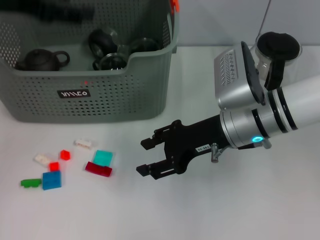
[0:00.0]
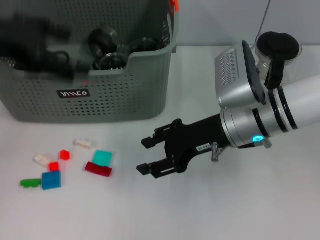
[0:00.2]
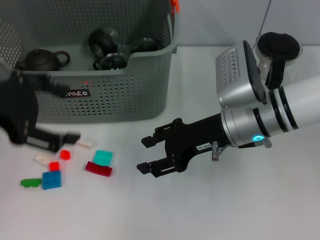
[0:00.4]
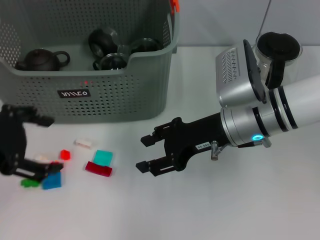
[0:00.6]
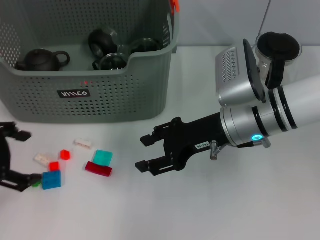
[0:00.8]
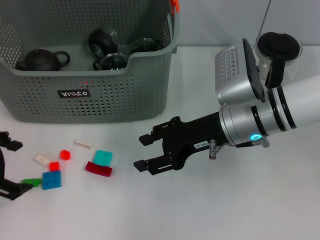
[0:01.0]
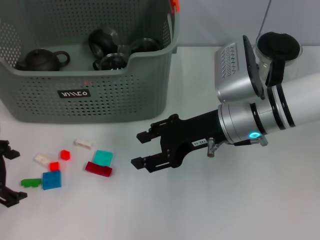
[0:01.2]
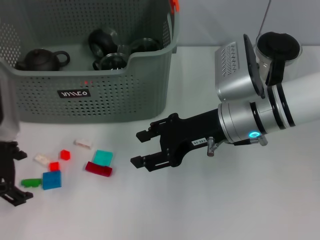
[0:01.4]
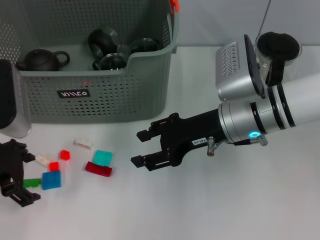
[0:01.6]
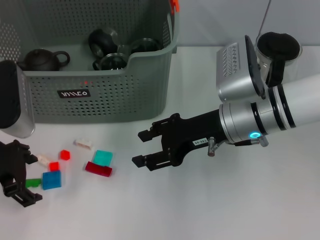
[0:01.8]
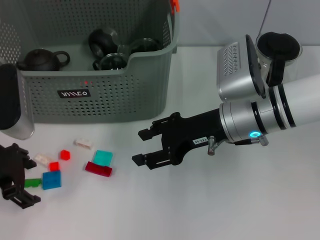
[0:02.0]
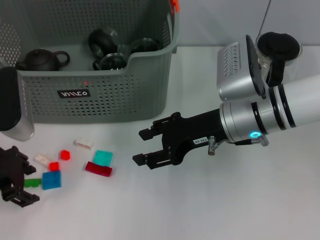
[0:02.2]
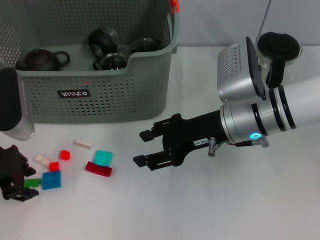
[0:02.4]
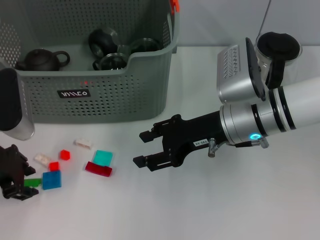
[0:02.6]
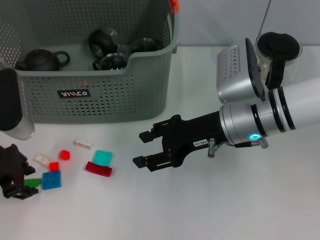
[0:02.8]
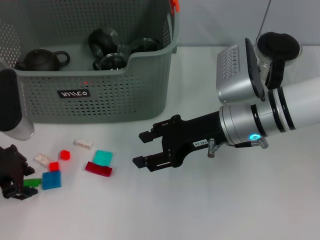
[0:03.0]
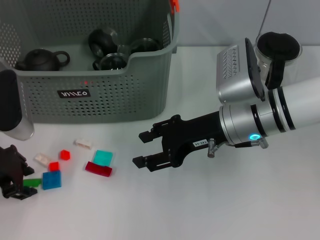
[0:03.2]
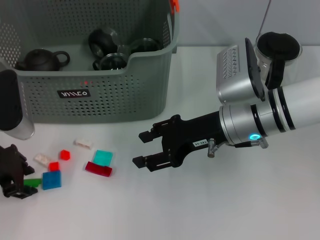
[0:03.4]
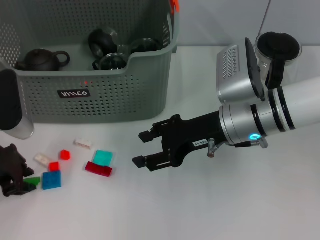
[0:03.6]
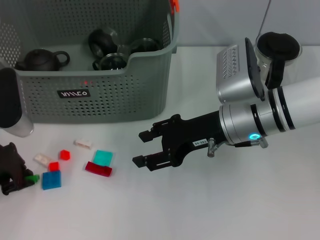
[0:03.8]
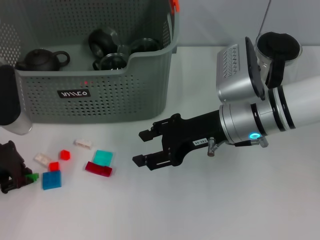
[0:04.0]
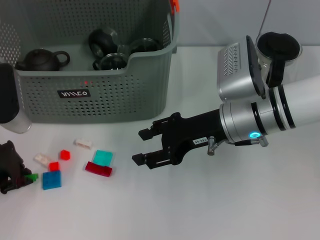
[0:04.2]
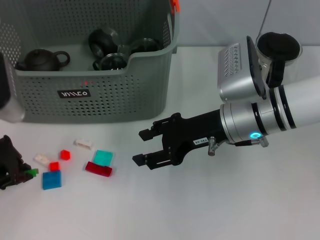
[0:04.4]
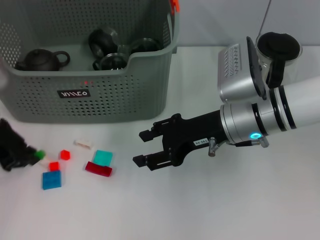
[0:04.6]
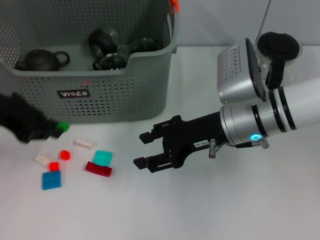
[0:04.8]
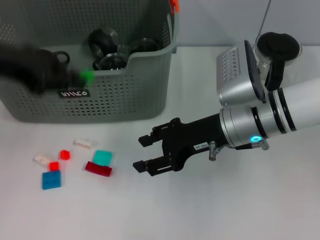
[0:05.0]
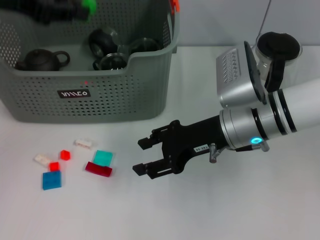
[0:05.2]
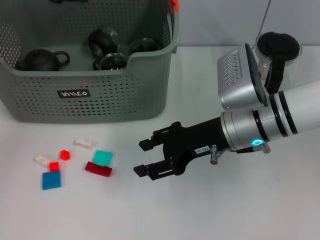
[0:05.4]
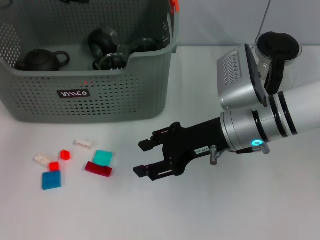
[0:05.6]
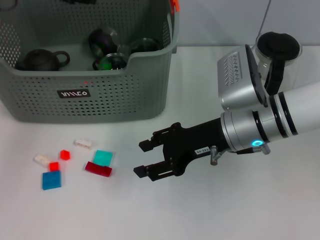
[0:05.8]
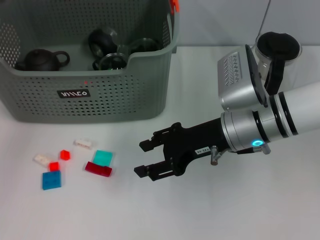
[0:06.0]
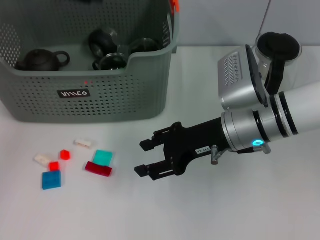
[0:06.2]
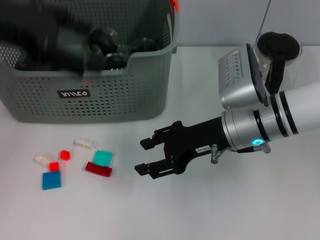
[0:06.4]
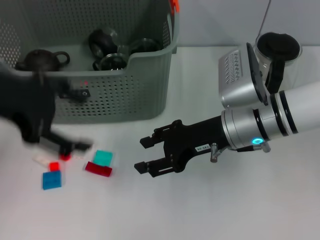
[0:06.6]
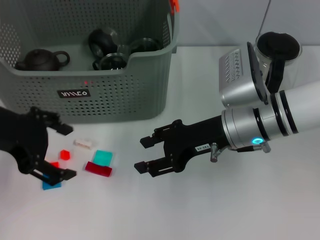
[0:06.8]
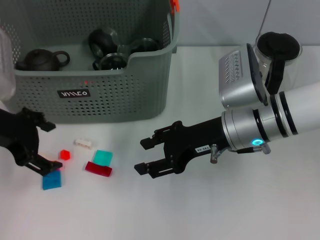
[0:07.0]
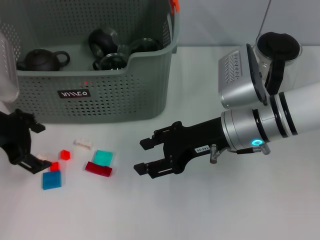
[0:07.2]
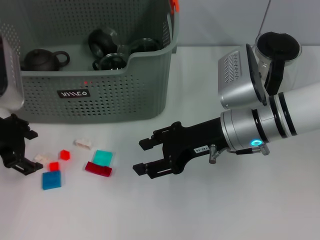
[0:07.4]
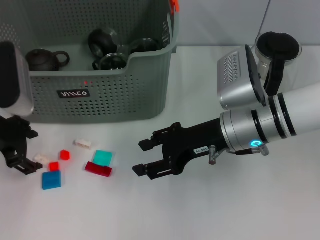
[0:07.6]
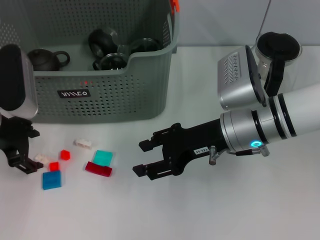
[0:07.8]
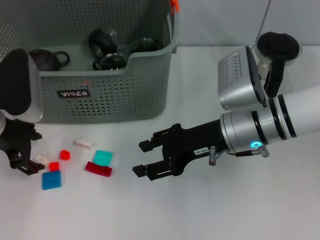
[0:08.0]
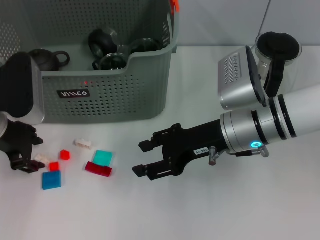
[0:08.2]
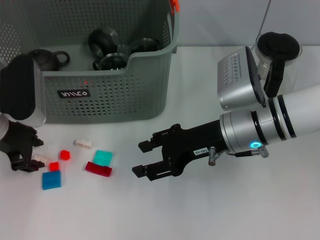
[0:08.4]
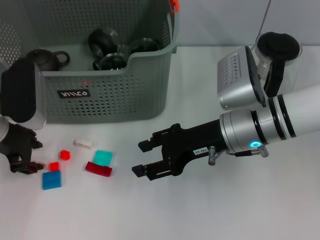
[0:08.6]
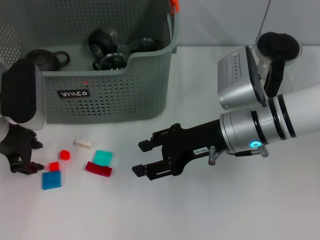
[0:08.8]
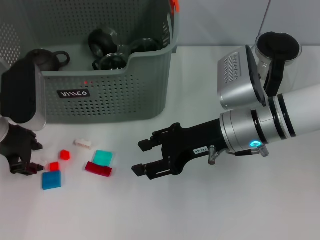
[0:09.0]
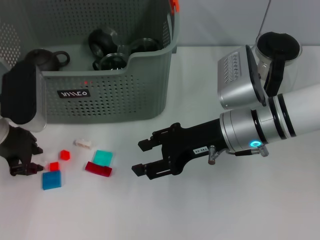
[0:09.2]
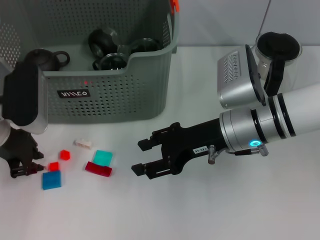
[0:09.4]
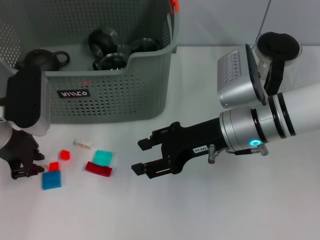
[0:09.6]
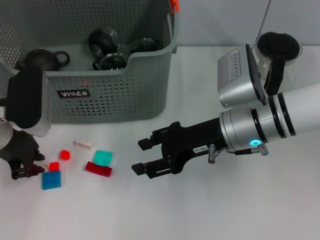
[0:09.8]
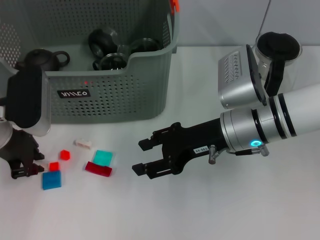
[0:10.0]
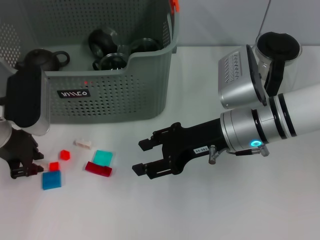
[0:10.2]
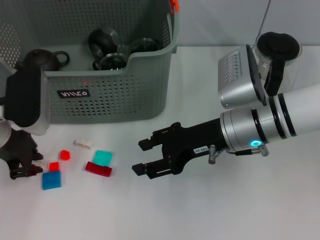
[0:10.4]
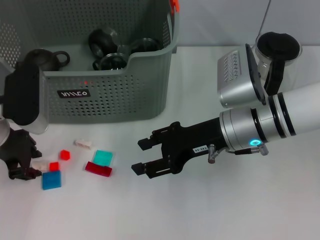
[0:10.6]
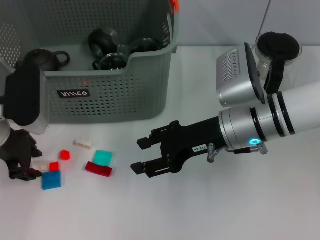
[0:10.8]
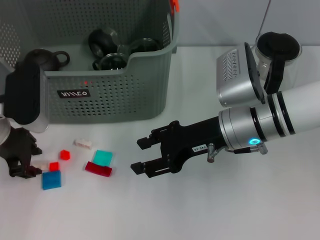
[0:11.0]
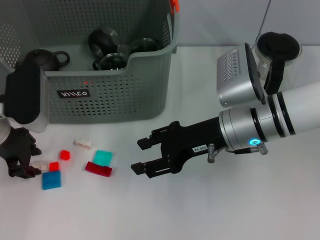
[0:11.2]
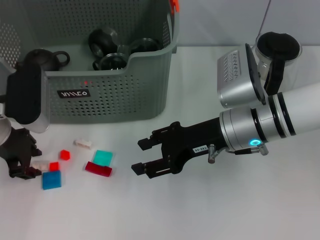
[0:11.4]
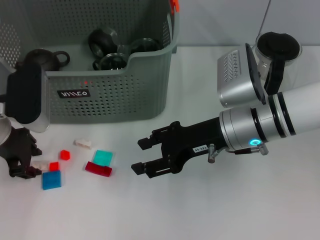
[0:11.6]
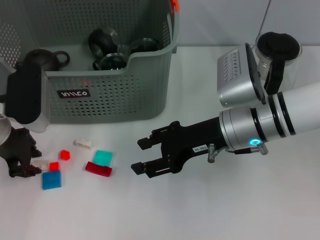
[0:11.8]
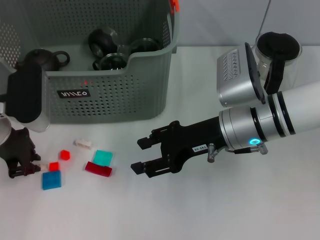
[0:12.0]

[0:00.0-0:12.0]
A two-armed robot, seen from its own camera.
Task of the whole recording: pick up the teacup on the table and place it into the storage bin, pick up the block on the table and place it into the storage bin.
Step, 0:00.0 to 0:04.0: Grasp the green block with left gripper.
Step, 0:04.2 to 0:05.8: Place the green block in the storage box with left gripper.
0:00.0 to 0:01.6: The left gripper goes about 15 cm downward and backward.
0:01.6 to 0:03.0: The left gripper closes.
0:03.0 to 0:04.4: The left gripper closes up.
0:04.4 to 0:06.0: The left gripper is displaced upward and forward by about 20 cm.
0:06.0 to 0:07.6: The left gripper travels downward and backward by about 15 cm, and opens up.
0:07.6 to 0:09.0: The left gripper closes up.
0:09.0 to 0:12.0: Neither gripper changes place.

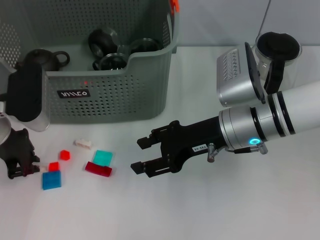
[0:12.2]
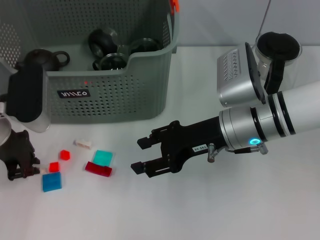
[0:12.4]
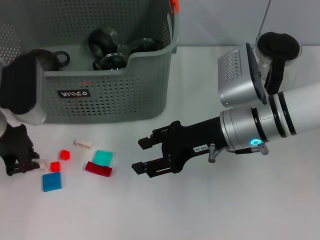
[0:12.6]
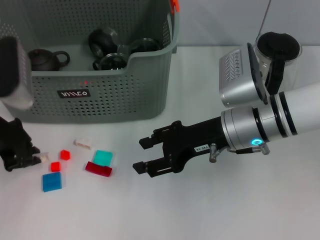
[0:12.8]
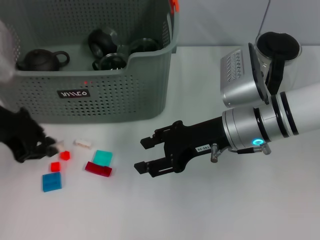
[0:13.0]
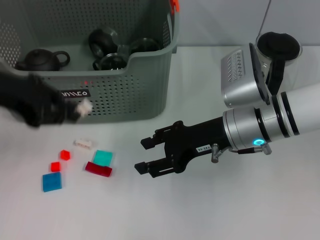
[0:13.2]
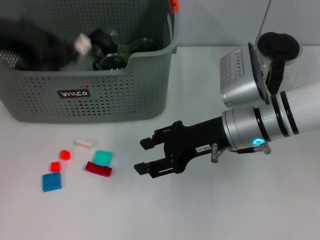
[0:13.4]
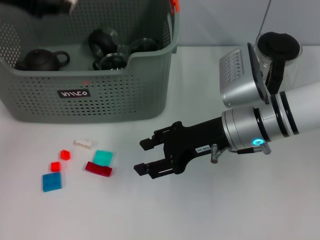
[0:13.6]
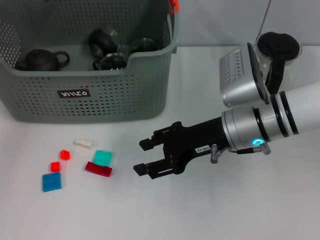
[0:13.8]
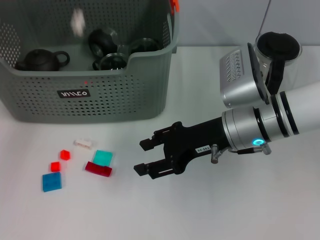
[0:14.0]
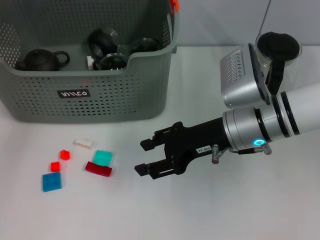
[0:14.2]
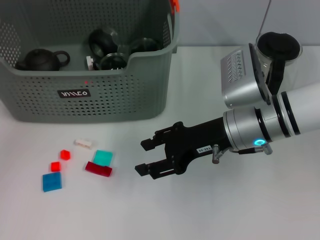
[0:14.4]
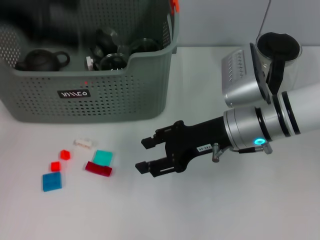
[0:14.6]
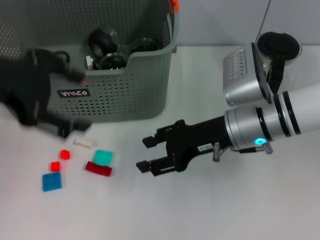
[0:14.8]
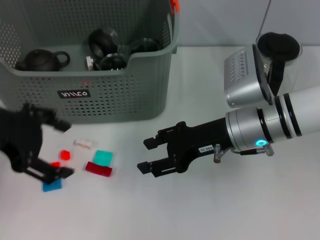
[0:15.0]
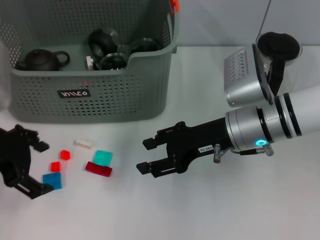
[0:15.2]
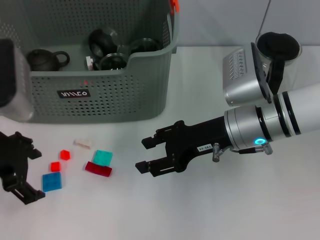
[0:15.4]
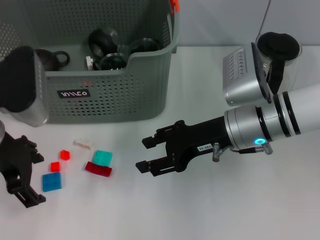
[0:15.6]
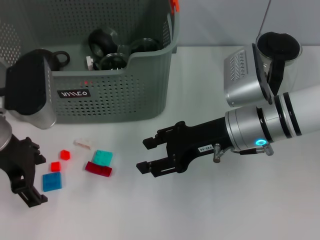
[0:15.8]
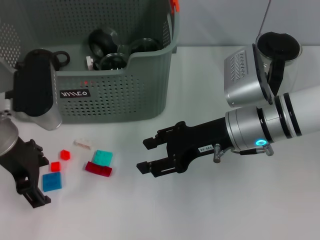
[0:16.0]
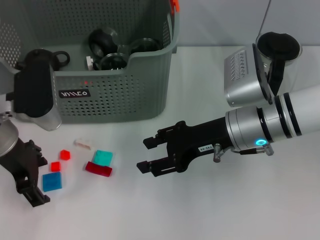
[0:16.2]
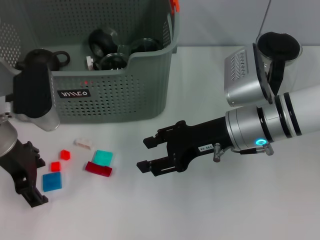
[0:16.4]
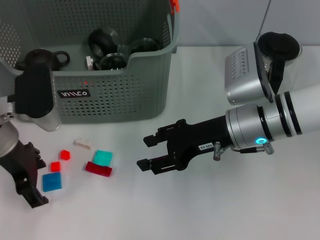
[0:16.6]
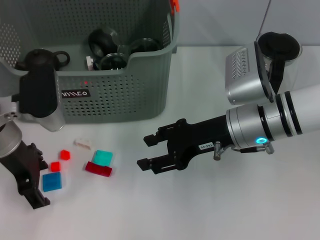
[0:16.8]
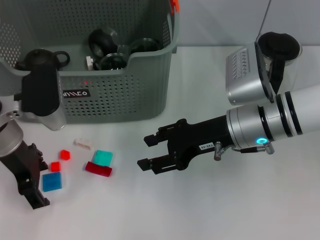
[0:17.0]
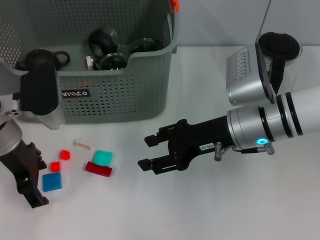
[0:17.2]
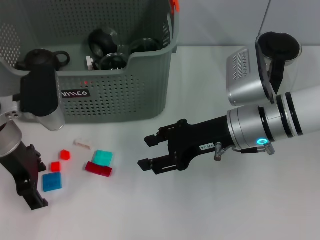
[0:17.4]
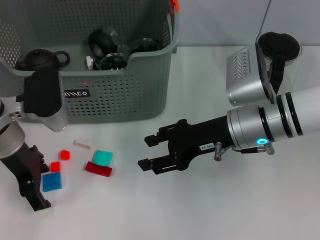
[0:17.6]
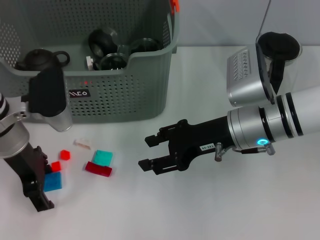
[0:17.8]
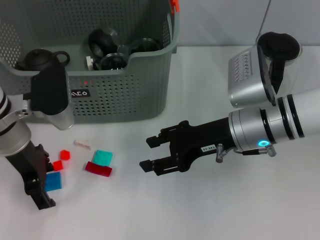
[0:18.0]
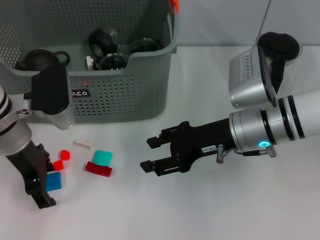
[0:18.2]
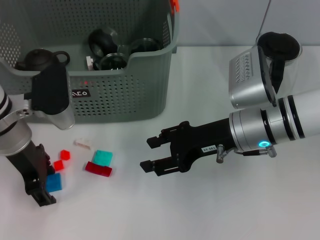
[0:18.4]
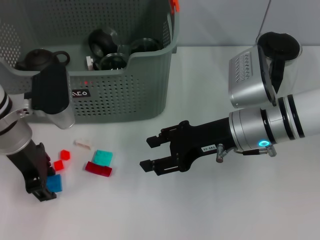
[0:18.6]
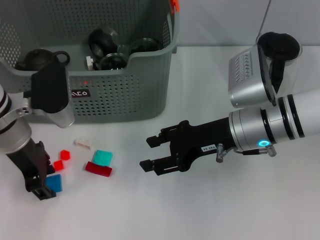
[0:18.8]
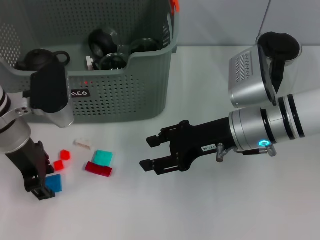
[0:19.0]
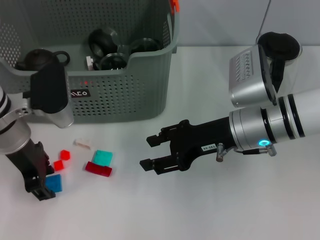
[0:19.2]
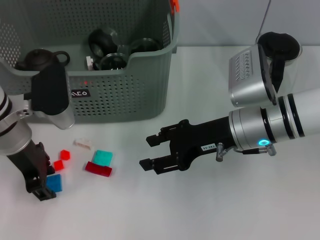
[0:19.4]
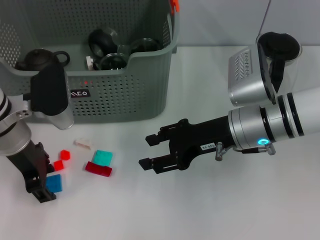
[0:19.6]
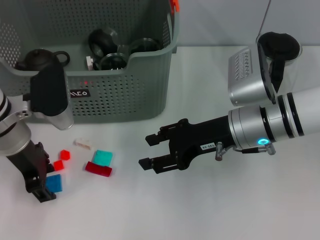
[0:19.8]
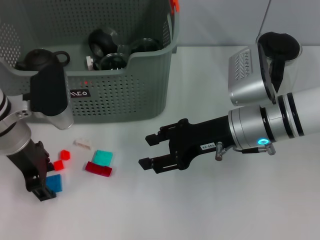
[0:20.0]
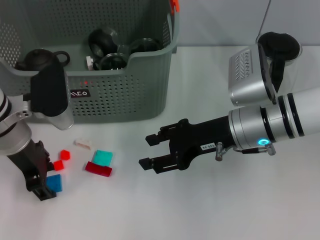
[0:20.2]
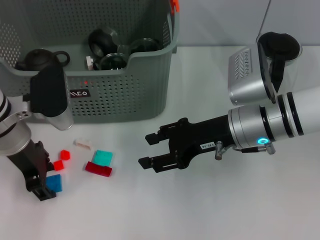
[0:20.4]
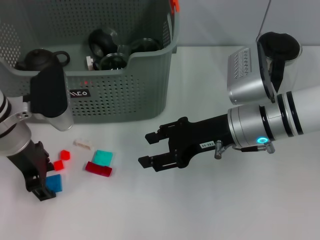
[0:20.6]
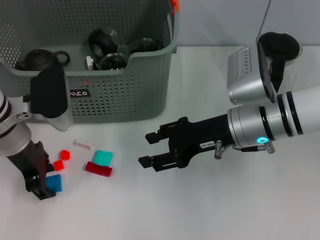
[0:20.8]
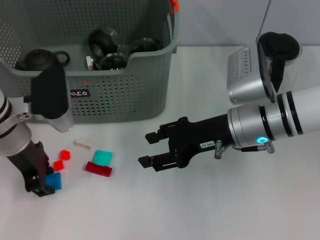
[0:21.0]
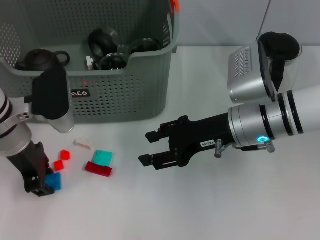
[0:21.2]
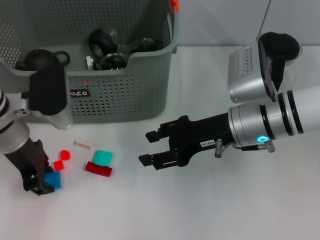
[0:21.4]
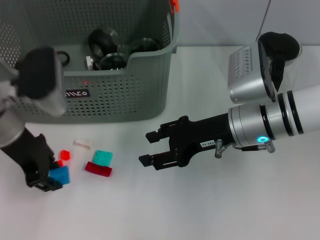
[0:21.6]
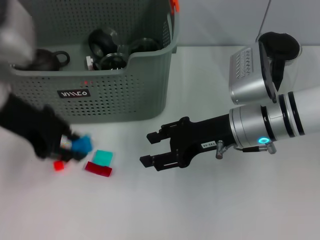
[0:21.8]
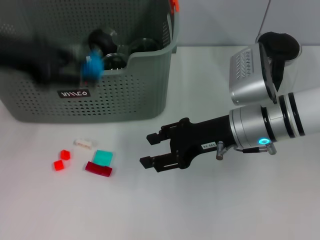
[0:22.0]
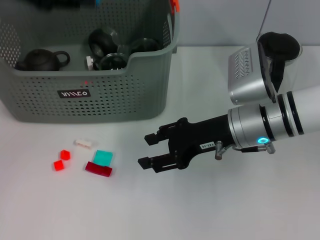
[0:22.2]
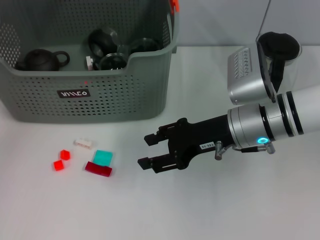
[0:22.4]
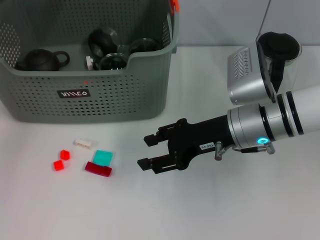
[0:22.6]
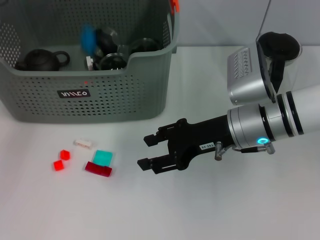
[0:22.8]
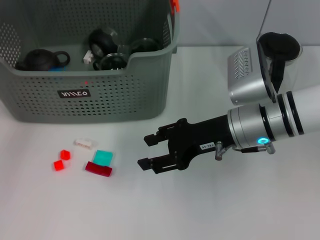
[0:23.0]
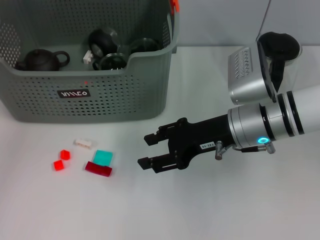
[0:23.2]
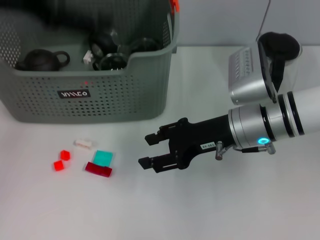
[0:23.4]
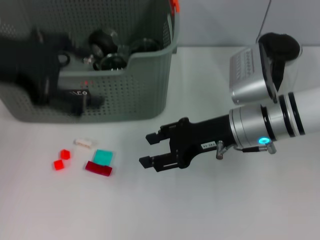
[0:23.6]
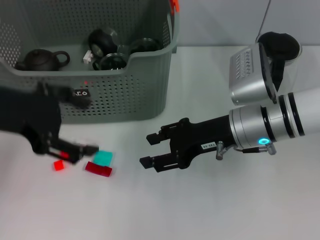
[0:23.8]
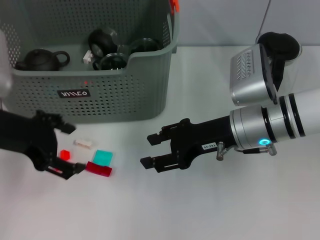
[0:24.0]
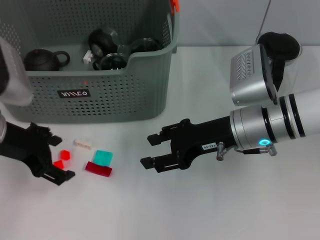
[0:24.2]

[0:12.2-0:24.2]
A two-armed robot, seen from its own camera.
Task of the whole recording: pick up the teacup on the table and place it into the storage bin, pick up the block on the table and place it into the storage bin.
Step, 0:12.4 to 0:14.0: Place the white block in the storage box with left gripper.
Step, 0:14.4 to 0:21.2: Grasp the dark blue block with left gripper.
Step, 0:21.4 to 0:23.0: Place the dark blue block in the storage box with left gripper.
0:12.2 to 0:13.8: The left gripper shifts about 20 cm upward and forward.
0:13.8 to 0:15.2: The left gripper goes some 15 cm backward and downward, and opens its fingers.
0:15.2 to 0:16.6: The left gripper goes roughly 5 cm downward.
0:16.6 to 0:18.2: The grippers make only small movements.
0:18.2 to 0:21.2: Both grippers stay about where they are.
0:21.2 to 0:22.6: The left gripper is displaced upward and forward by some 20 cm.
0:22.6 to 0:24.2: The left gripper heads backward and downward, covering roughly 20 cm, and opens its fingers.
